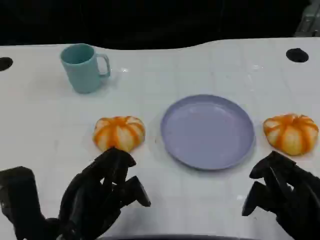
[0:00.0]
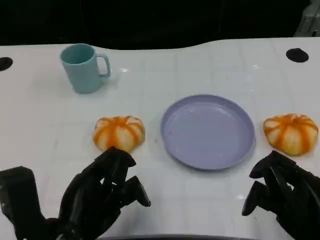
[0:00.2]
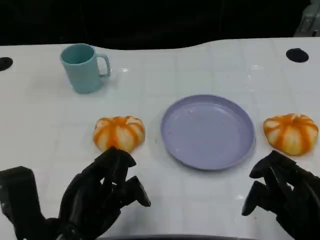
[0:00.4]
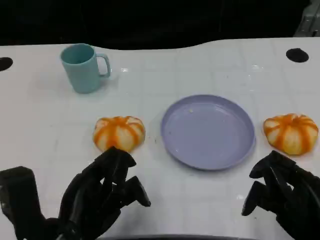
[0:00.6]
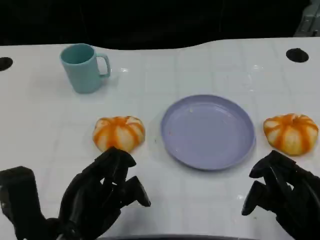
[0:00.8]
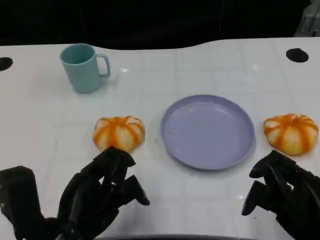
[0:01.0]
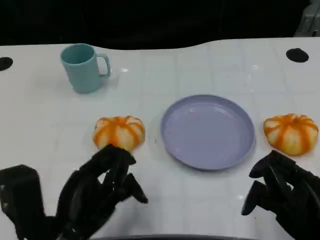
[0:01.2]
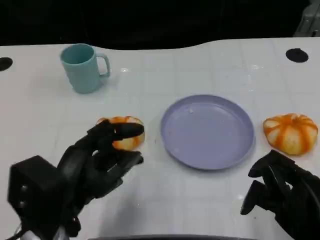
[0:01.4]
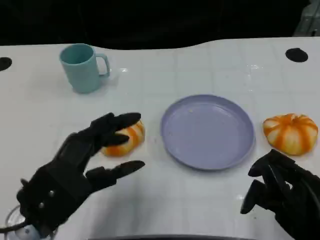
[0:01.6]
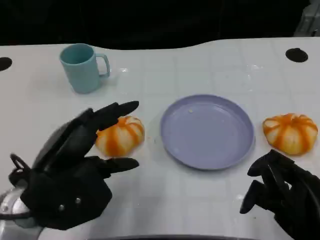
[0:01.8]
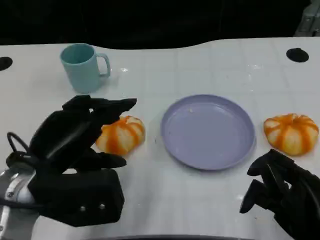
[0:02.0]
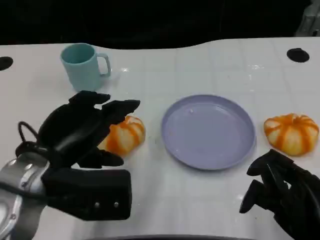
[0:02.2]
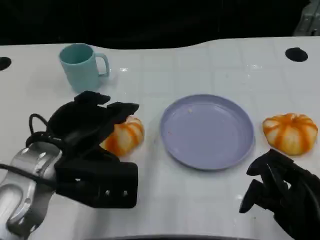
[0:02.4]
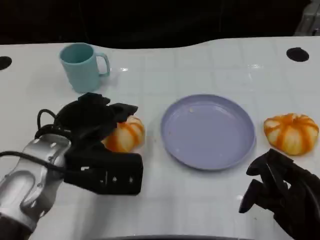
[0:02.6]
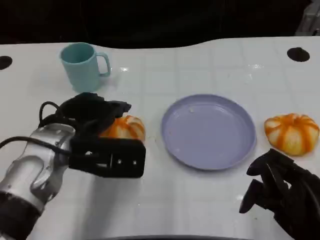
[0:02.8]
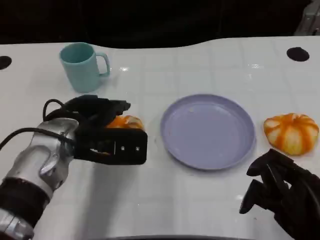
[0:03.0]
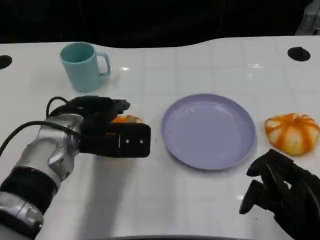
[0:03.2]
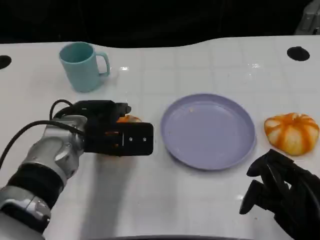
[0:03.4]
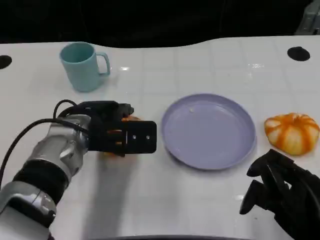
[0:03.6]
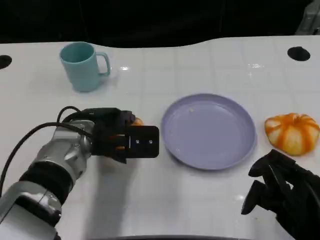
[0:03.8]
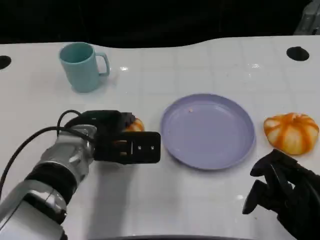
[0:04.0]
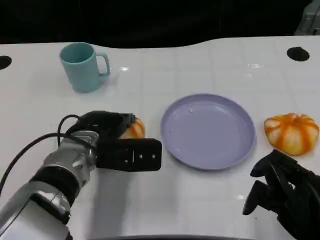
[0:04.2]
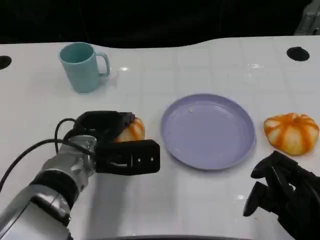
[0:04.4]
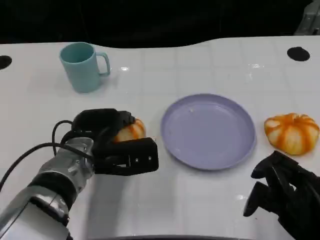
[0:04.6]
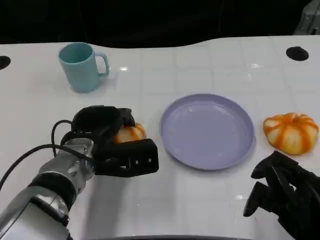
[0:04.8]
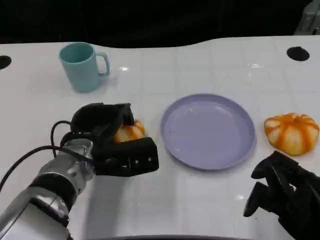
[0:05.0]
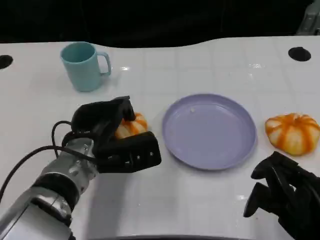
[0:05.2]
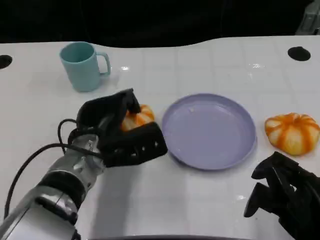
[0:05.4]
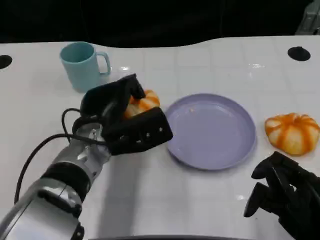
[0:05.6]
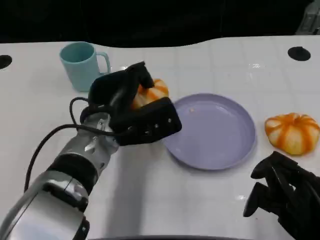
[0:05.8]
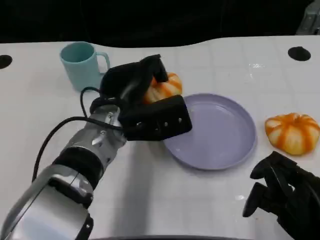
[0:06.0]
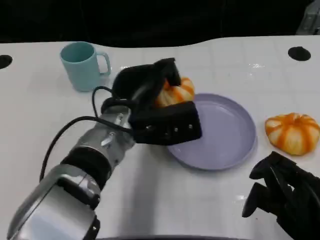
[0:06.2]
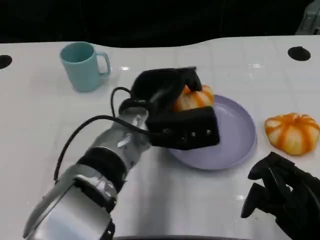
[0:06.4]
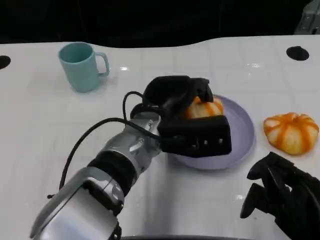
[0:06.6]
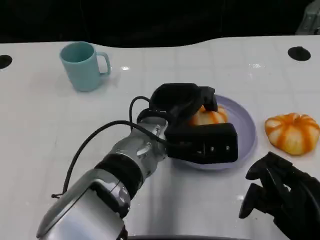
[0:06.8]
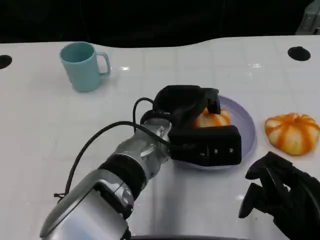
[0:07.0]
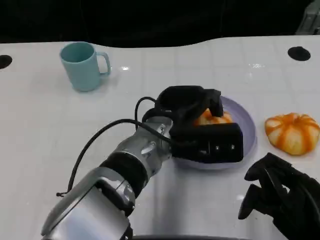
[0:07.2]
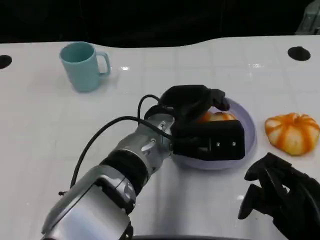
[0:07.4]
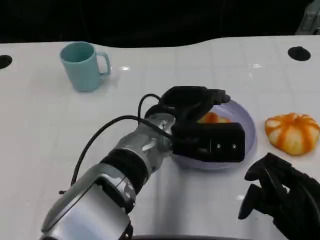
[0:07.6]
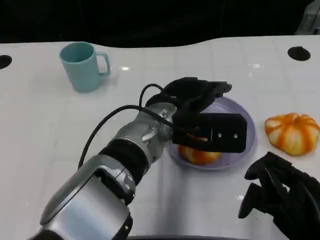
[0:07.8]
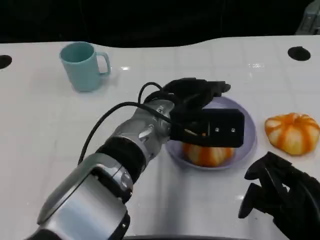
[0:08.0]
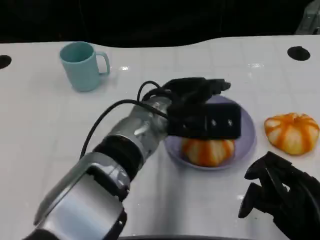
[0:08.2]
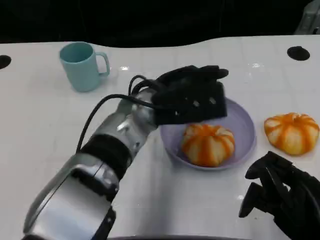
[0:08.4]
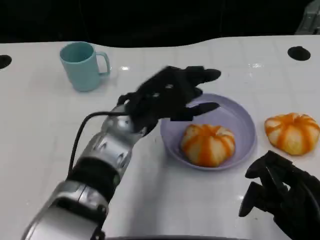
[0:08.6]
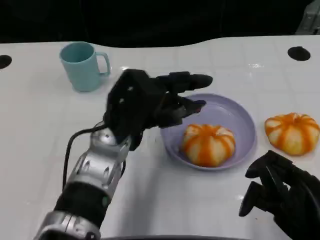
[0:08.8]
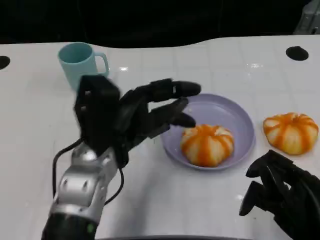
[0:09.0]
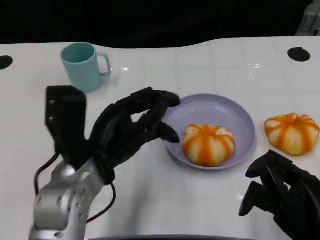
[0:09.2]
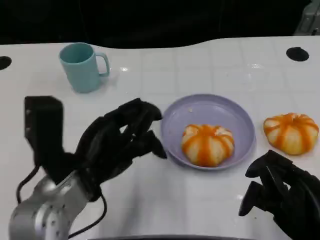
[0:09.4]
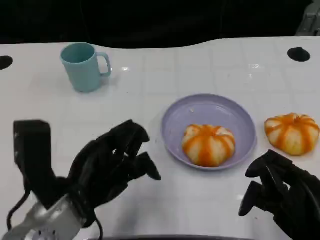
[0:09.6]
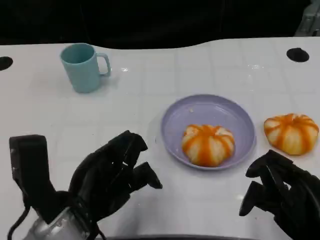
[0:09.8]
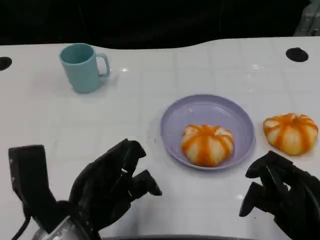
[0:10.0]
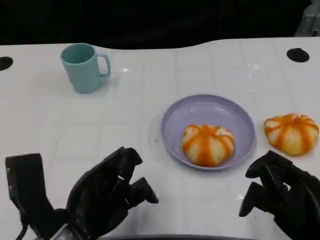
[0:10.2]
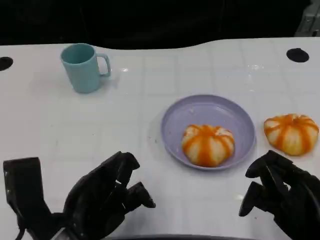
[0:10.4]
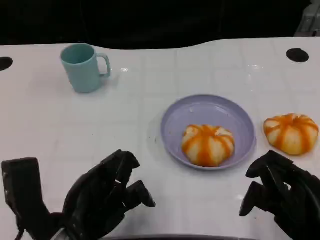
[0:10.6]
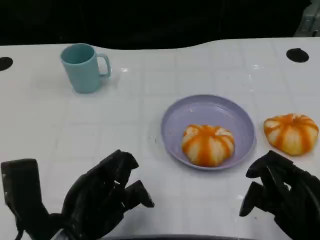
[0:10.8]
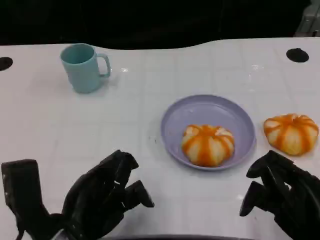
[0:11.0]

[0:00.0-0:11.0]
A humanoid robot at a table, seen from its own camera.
Task of the whole recording: Grasp the bread from the table and place it into the plate.
0:00.0 to 0:01.6: The left hand shifts by some 5 cm.
0:01.6 to 0:03.2: The left hand goes approximately 10 cm forward.
0:03.2 to 0:04.8: The left hand shifts roughly 5 cm downward.
0:04.8 to 0:06.2: The left hand moves to the right and upward, about 10 cm.
0:06.2 to 0:07.8: The left hand changes place by about 5 cm.
0:07.8 to 0:09.4: The left hand is displaced to the left and backward by approximately 15 cm.
0:09.4 to 0:11.0: The left hand is displaced backward by about 5 cm.

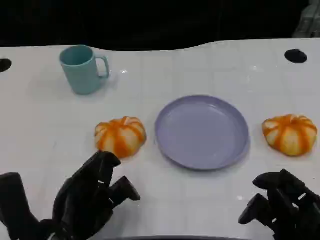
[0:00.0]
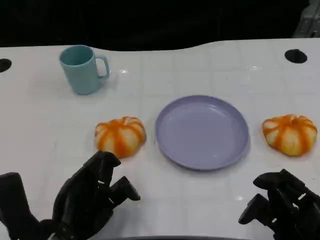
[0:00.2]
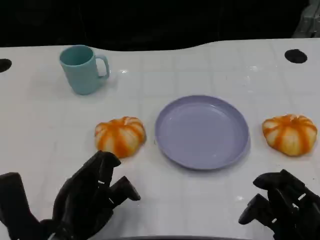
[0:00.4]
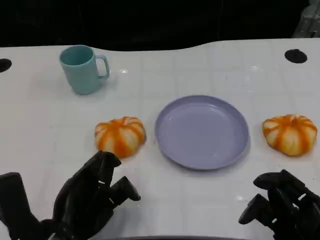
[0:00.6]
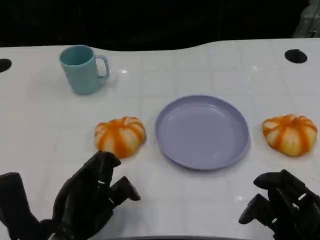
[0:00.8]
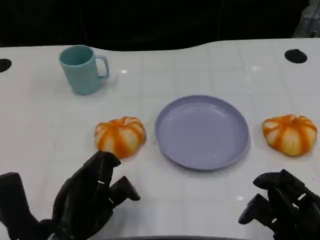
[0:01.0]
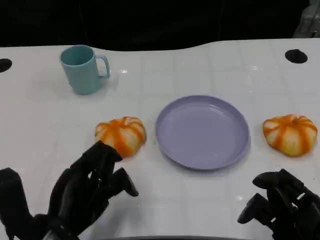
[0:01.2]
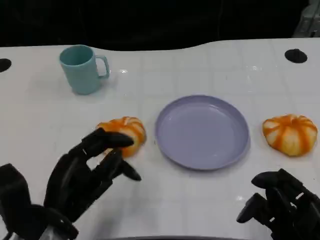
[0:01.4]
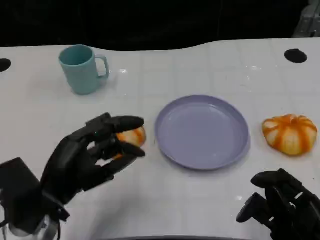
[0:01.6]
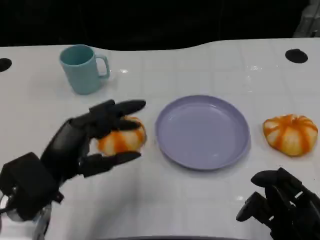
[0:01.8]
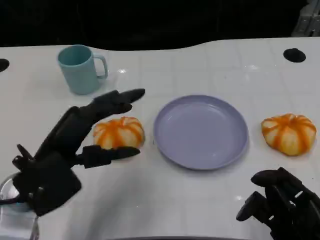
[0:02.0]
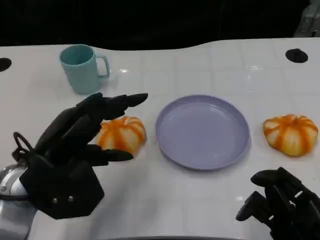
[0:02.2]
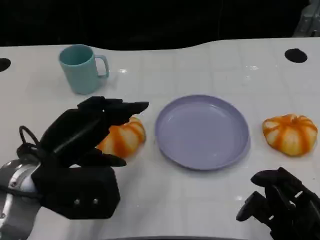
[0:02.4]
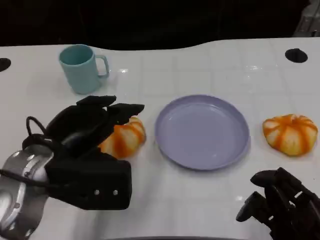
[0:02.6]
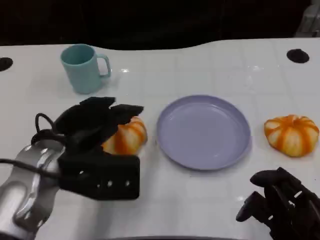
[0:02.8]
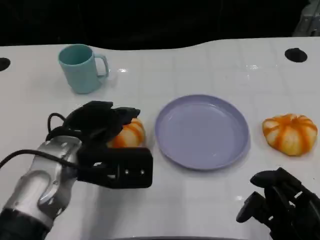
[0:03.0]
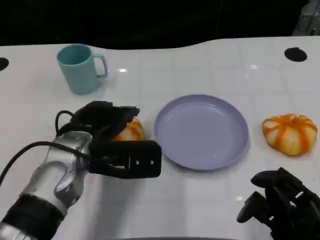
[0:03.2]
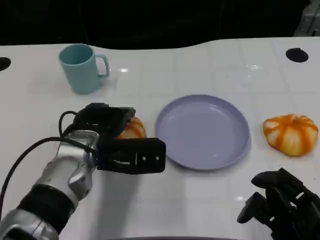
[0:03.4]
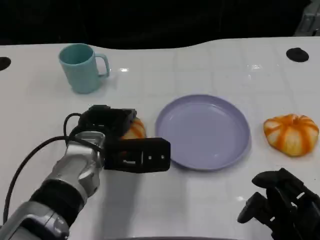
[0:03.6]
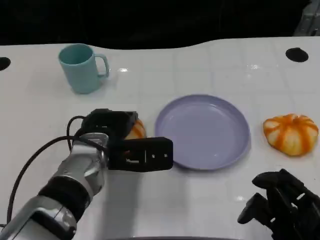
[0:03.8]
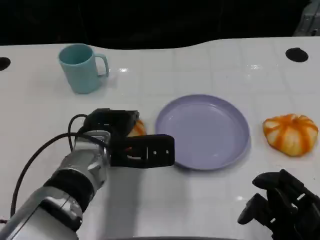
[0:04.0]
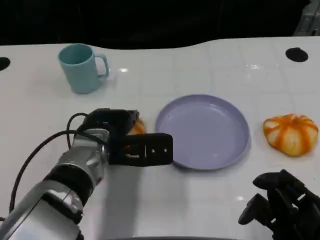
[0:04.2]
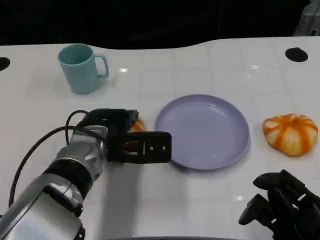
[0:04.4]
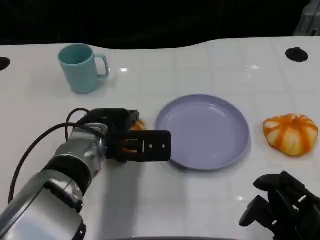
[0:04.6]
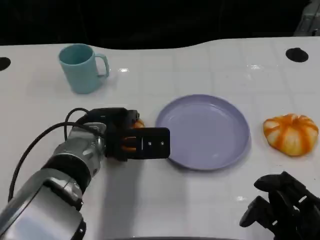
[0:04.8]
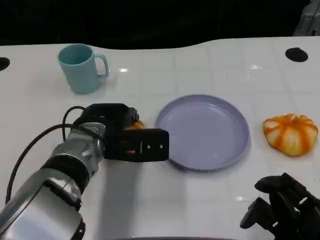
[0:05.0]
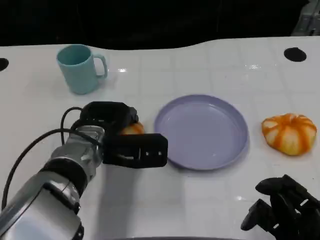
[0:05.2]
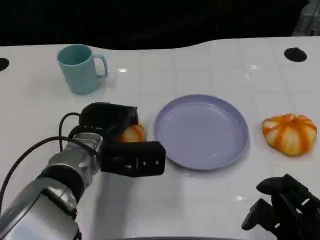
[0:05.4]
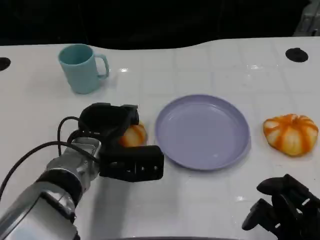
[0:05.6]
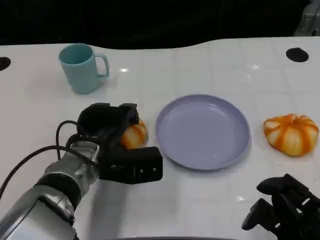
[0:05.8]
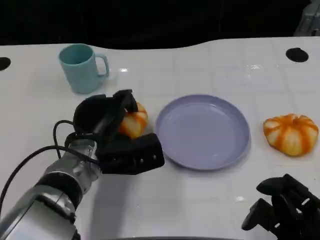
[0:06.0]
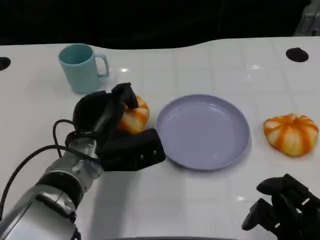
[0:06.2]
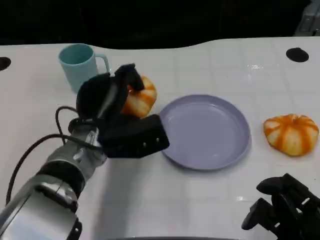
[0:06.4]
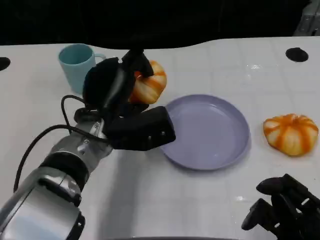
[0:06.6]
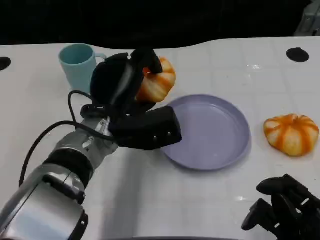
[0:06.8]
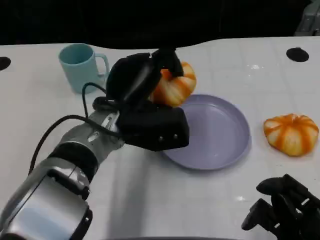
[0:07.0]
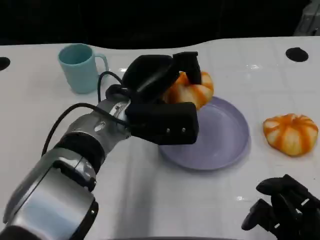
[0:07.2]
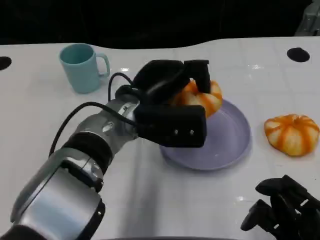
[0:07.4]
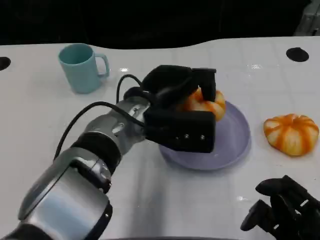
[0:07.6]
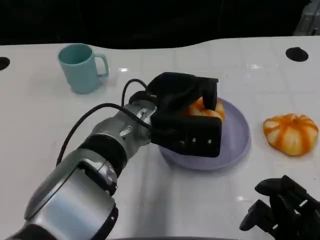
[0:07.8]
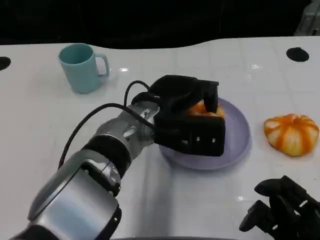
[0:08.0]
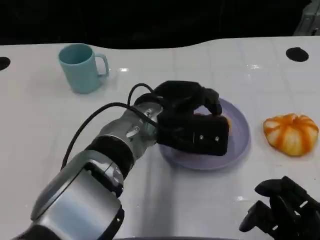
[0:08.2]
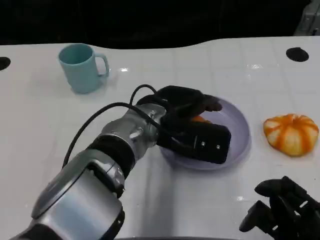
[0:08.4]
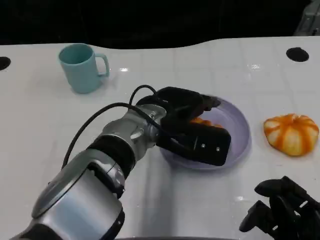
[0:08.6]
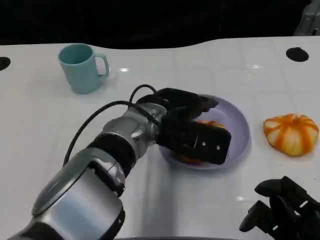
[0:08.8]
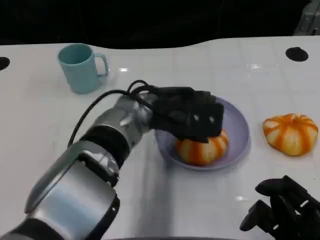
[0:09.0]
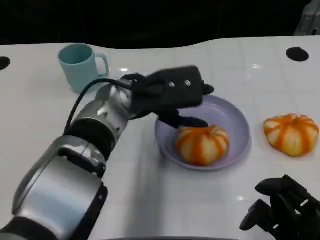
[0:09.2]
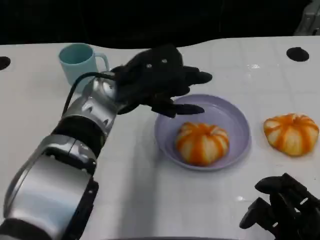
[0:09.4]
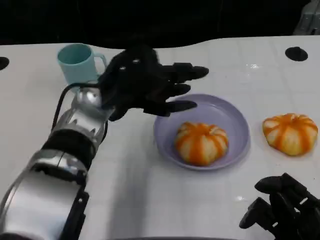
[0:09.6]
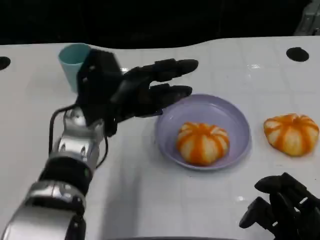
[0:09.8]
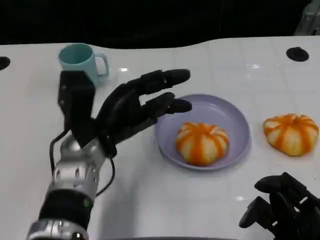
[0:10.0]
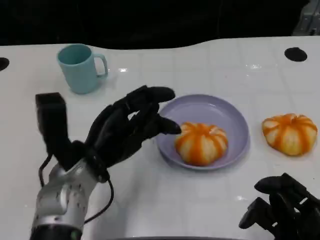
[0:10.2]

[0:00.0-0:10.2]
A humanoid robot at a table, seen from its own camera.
Task of the whole recording: Grasp the bread from the table and place it into the plate.
0:01.4 to 0:03.0: The left hand shifts roughly 10 cm forward.
0:03.0 to 0:04.4: The left hand moves some 5 cm.
0:05.8 to 0:07.2: The left hand shifts approximately 10 cm upward and to the right.
0:08.8 to 0:10.2: The left hand heads to the left and backward, covering some 10 cm.

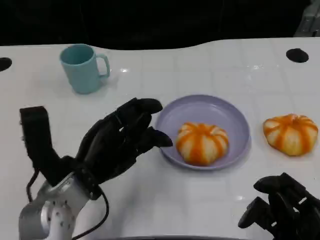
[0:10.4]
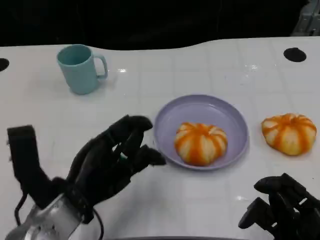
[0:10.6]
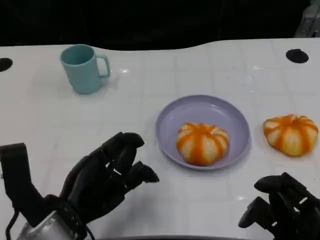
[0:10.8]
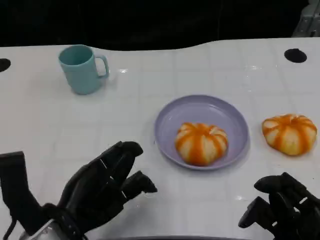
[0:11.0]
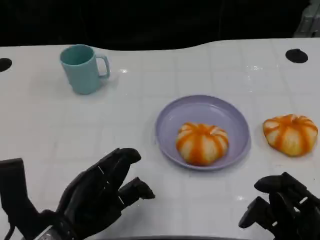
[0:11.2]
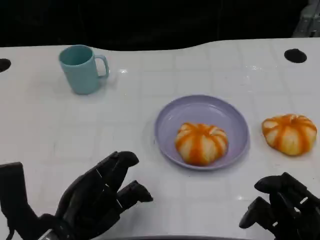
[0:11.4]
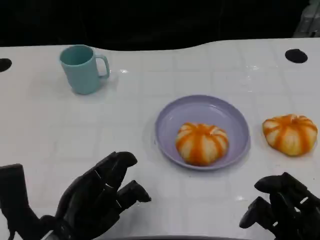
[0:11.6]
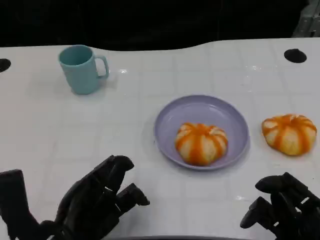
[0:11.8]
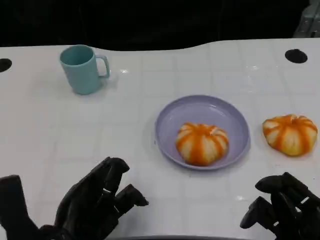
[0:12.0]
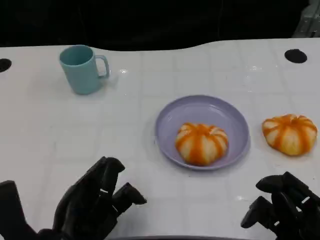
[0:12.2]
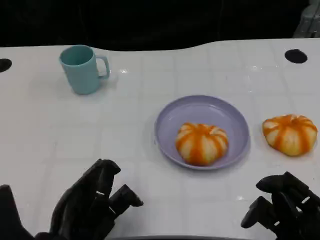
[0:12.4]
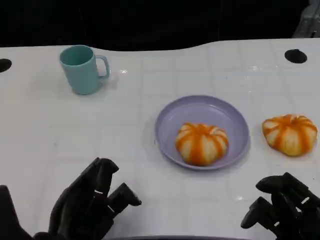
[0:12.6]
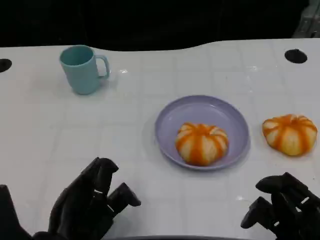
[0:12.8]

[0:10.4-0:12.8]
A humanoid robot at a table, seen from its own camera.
Task of the whole recording: Grasp the bread from the table and place it into the plate.
0:10.4 to 0:11.6: The left hand travels backward by some 5 cm.
0:11.6 to 0:12.8: The hands move only a little.
